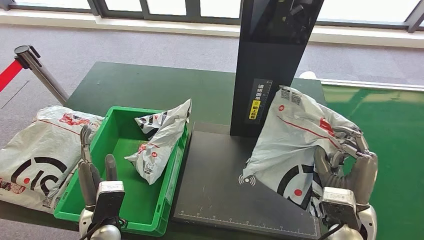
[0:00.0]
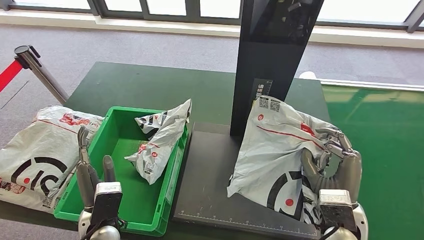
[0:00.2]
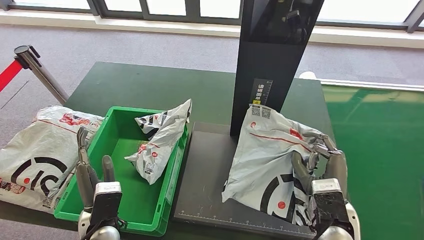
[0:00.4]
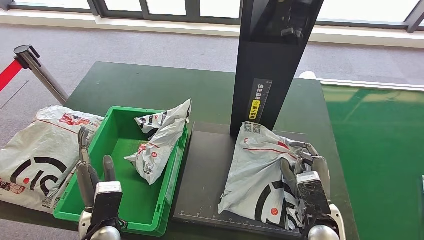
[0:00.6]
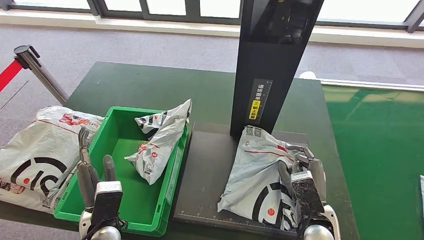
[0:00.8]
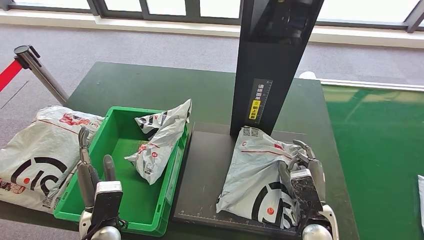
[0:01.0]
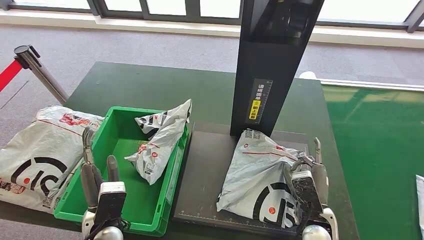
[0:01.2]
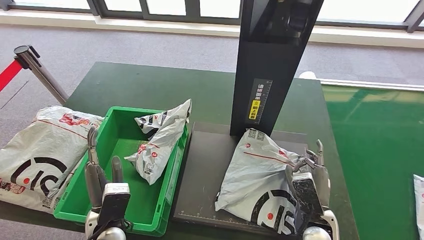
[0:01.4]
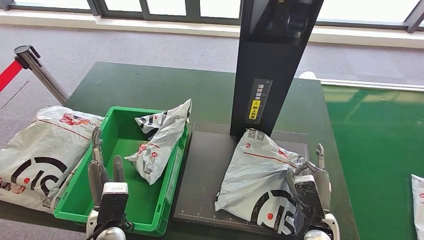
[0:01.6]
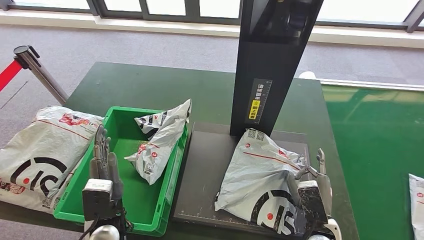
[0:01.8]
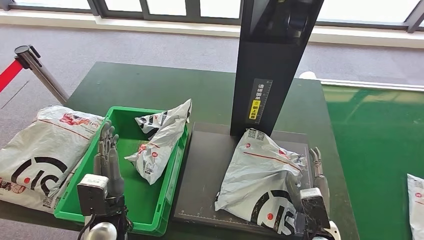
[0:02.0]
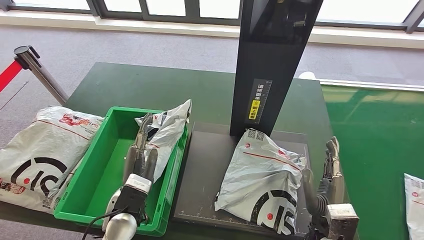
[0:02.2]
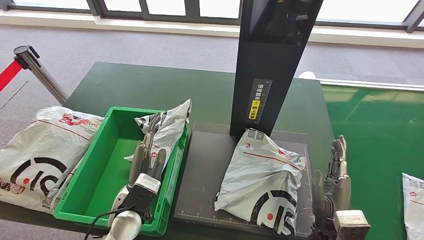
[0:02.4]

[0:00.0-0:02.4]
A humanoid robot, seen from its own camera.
Step, 0:00.2 to 0:02.4: Place the parcel onto the inbound machine.
0:00.0 to 0:01.2: The right hand shifts roughly 10 cm downward.
0:01.2 to 0:02.4: The left hand heads to the right, covering approximately 5 cm.
